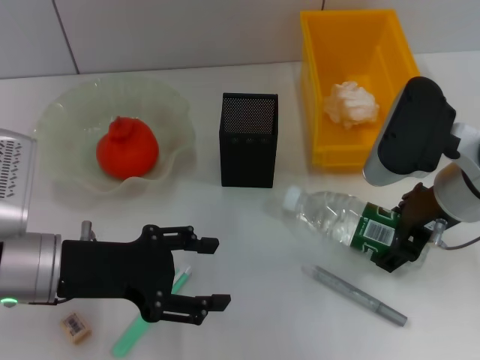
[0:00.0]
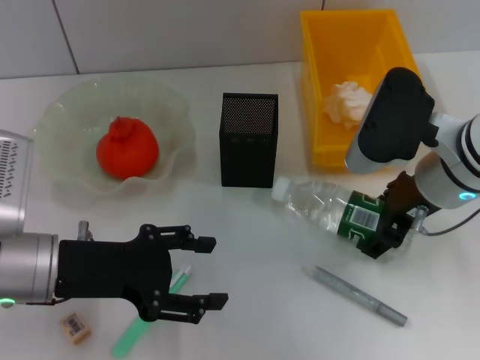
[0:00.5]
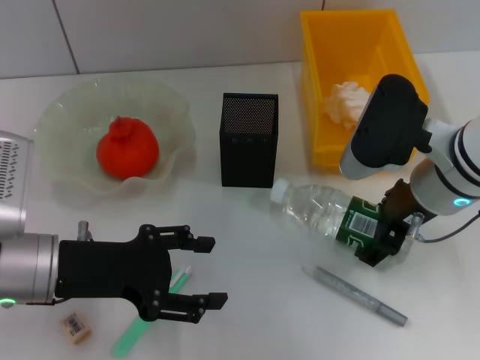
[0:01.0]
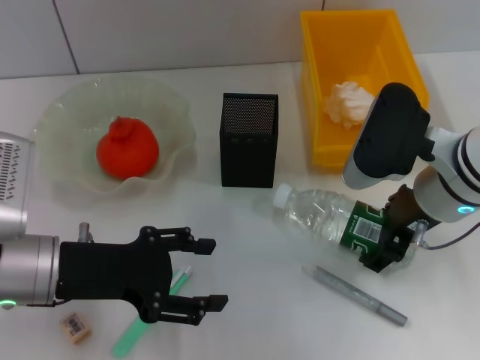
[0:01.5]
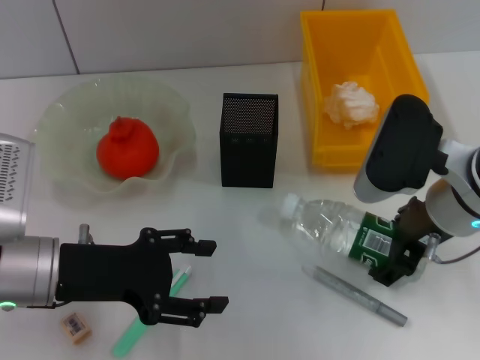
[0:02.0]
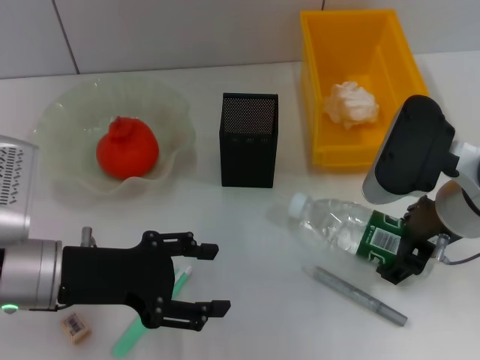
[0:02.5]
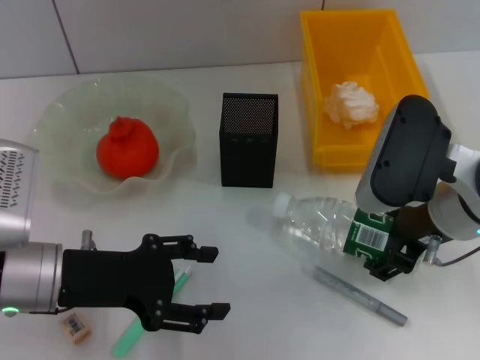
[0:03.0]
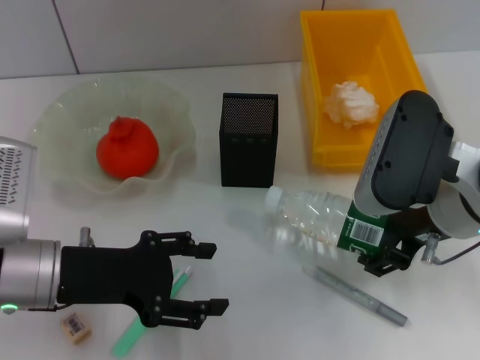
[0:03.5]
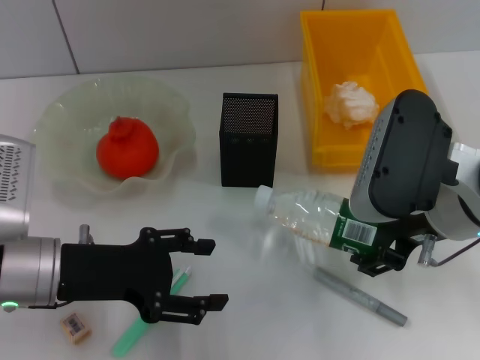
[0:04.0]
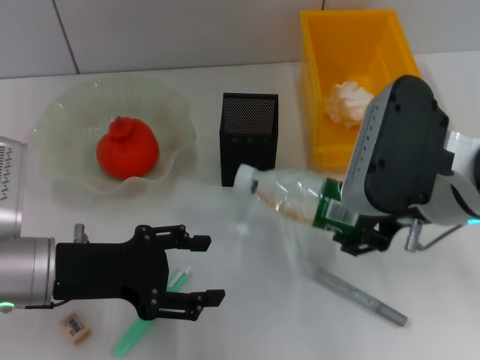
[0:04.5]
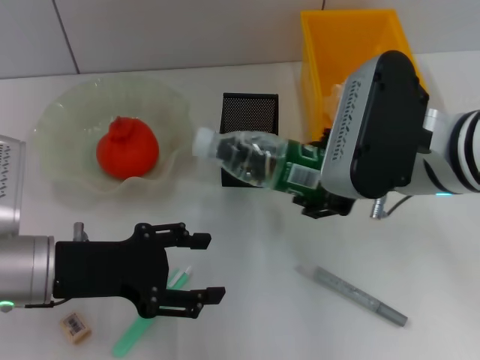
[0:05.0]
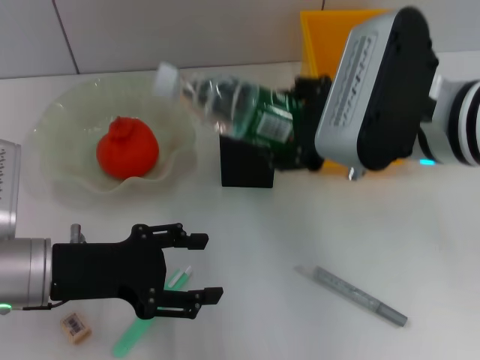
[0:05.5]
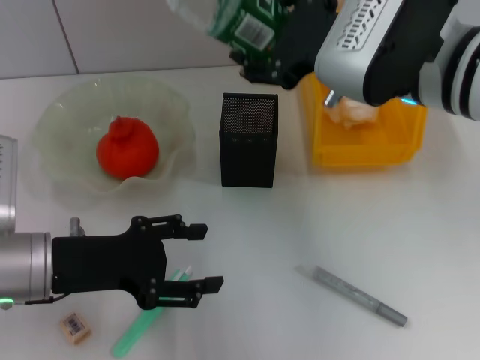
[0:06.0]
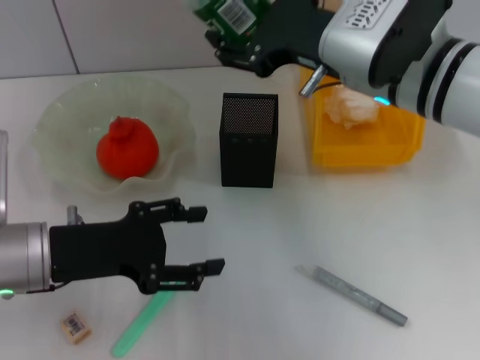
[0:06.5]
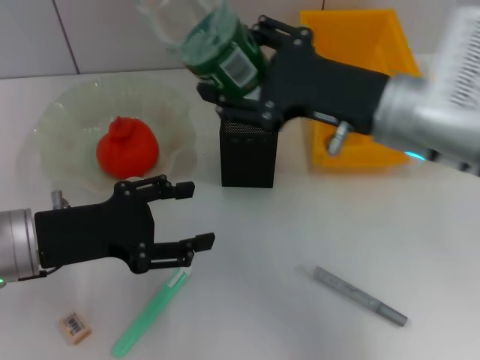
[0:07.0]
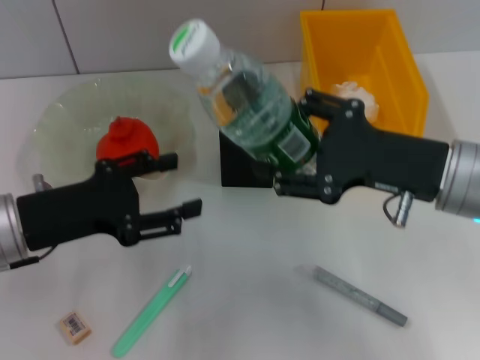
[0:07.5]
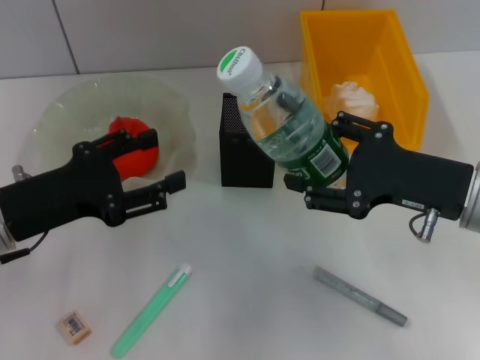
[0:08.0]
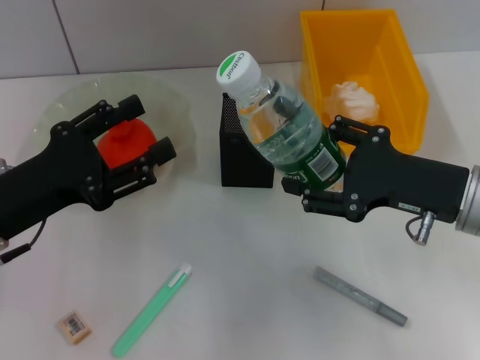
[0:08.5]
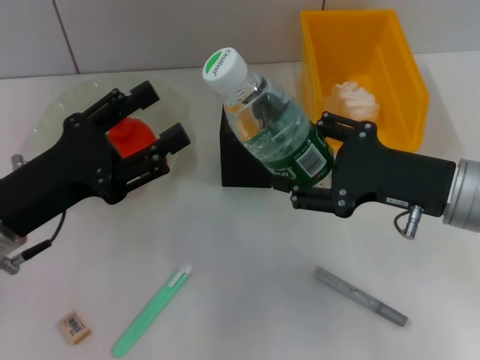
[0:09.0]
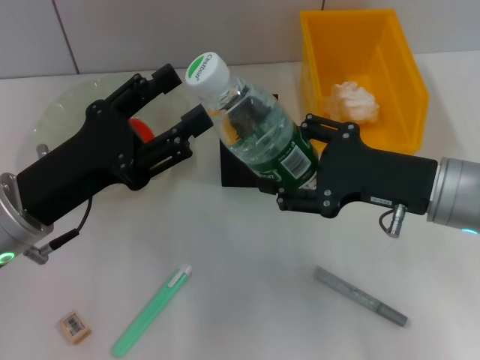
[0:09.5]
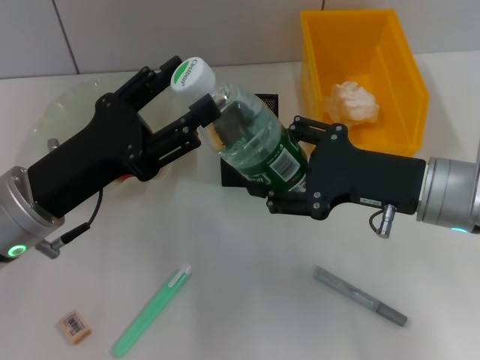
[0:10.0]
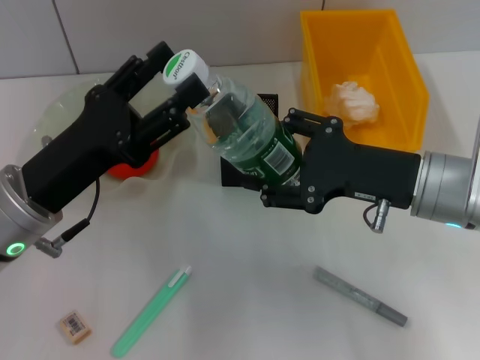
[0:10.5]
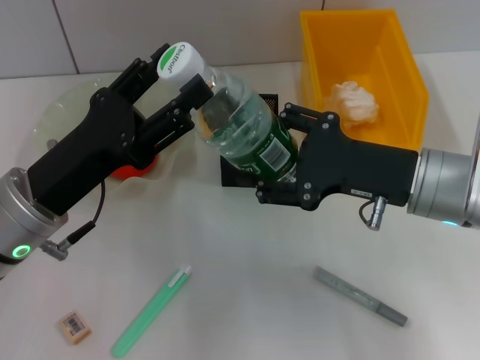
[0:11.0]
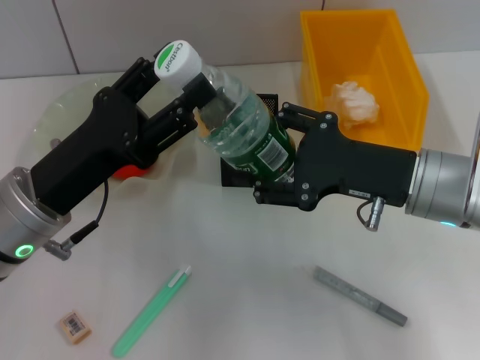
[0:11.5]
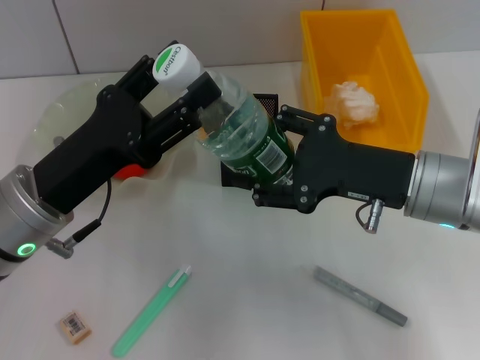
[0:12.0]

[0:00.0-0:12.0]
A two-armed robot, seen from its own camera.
Step, 0:00.0 to 0:02.5: Grab the water bottle with the right hand.
0:00.0 to 0:02.0: The grippers stay close to where they were, moving slightly.
0:02.0 to 0:04.0: The right gripper changes place by some 5 cm.
0:04.0 to 0:06.0: The right gripper goes roughly 10 cm upward and forward.
0:06.0 to 0:08.0: The right gripper goes roughly 15 cm downward, to the right and backward.
0:10.0 to 0:12.0: The grippers make only small movements.

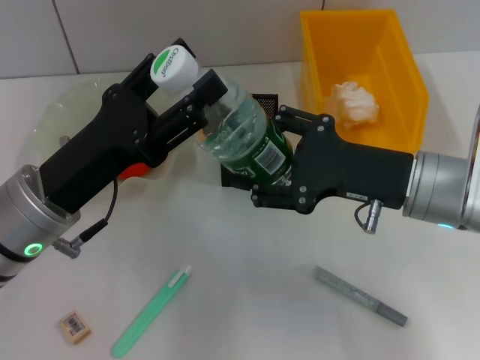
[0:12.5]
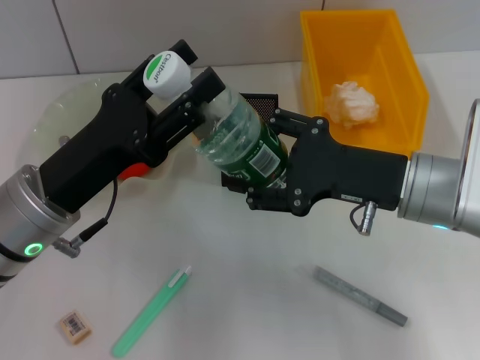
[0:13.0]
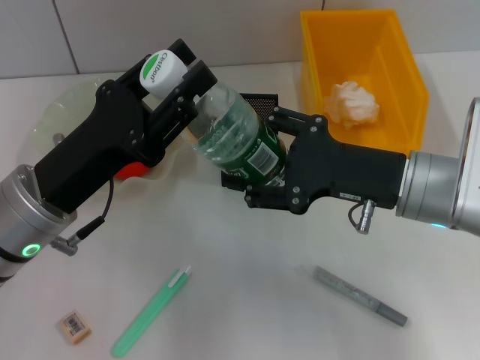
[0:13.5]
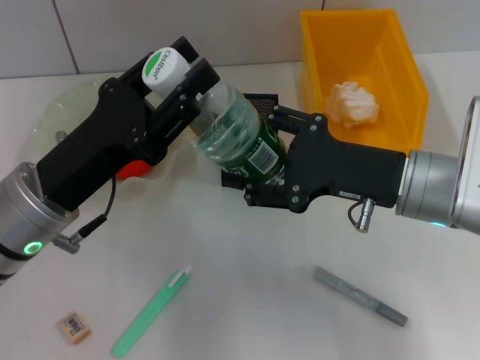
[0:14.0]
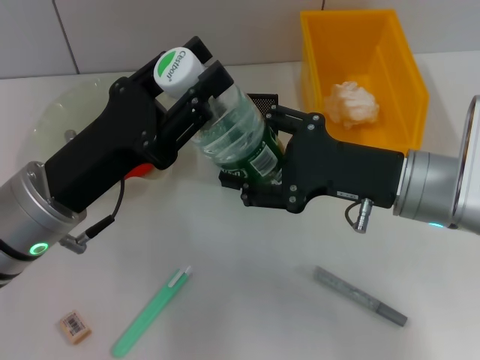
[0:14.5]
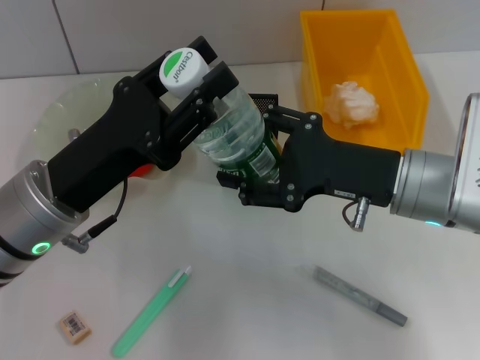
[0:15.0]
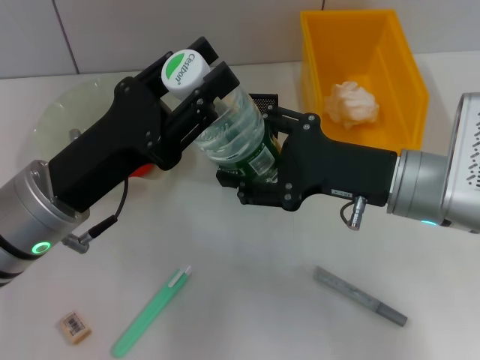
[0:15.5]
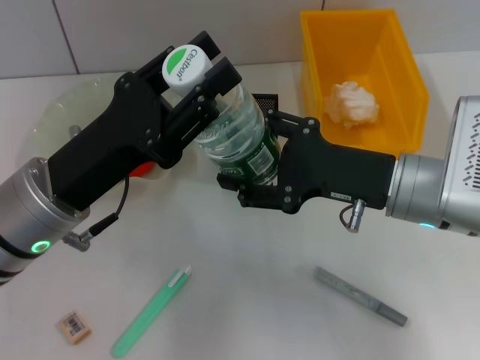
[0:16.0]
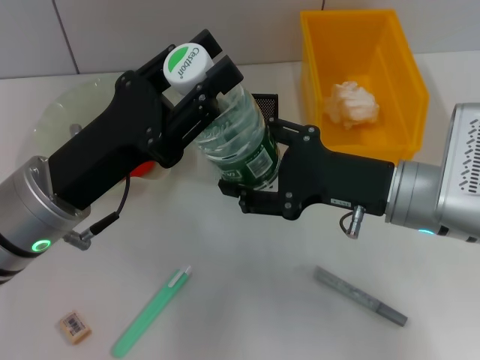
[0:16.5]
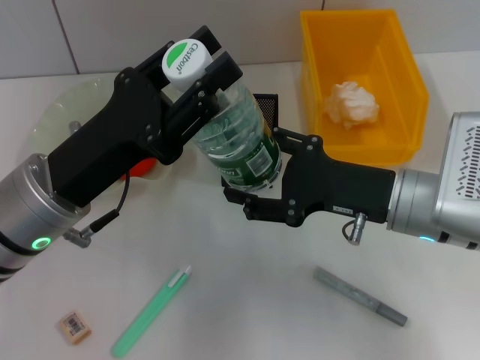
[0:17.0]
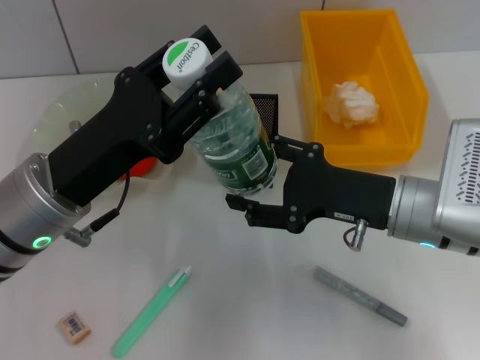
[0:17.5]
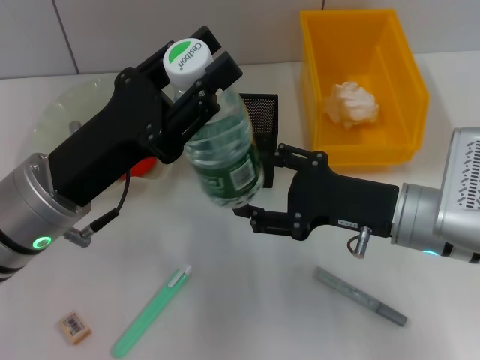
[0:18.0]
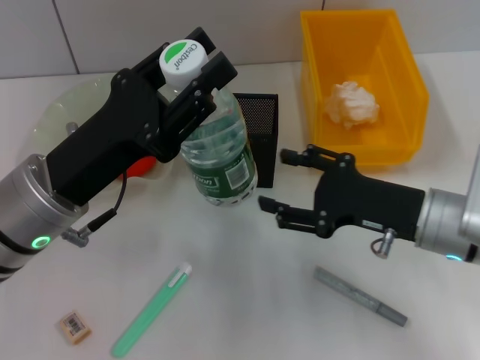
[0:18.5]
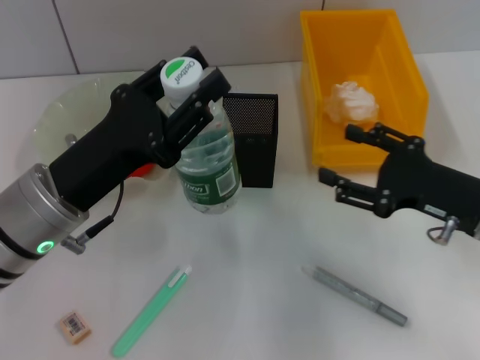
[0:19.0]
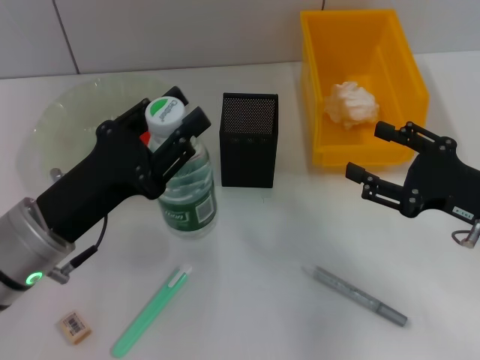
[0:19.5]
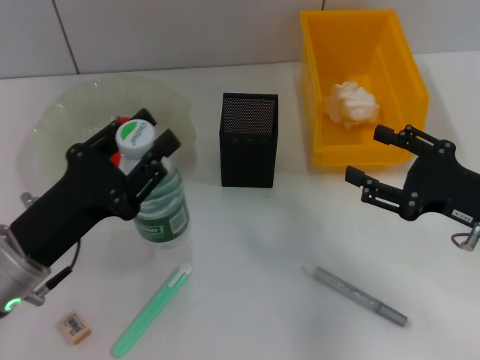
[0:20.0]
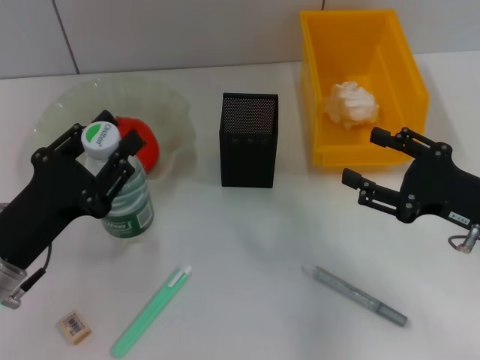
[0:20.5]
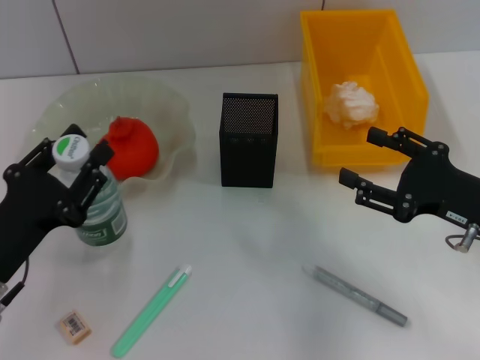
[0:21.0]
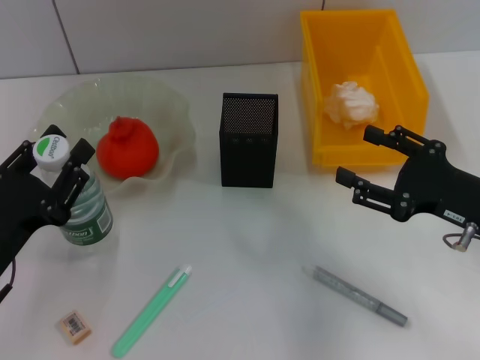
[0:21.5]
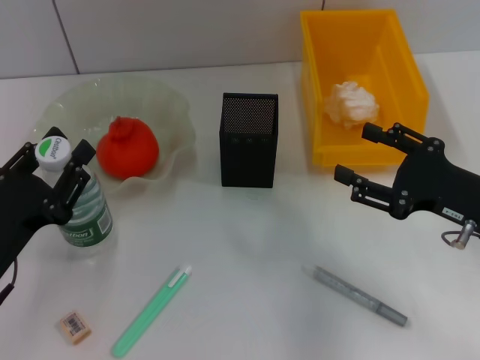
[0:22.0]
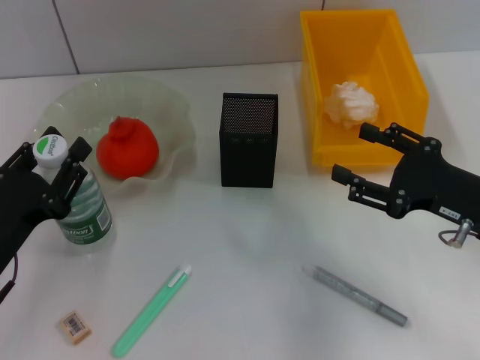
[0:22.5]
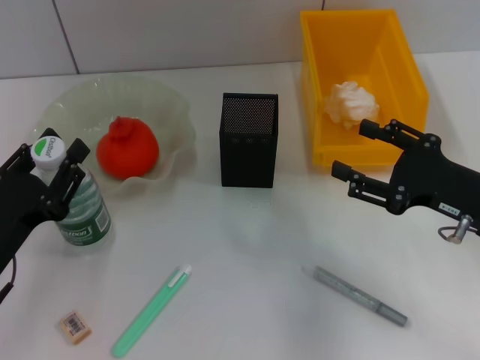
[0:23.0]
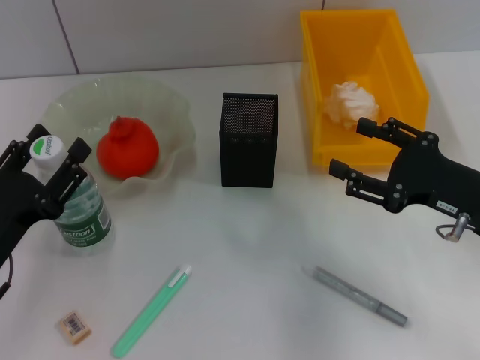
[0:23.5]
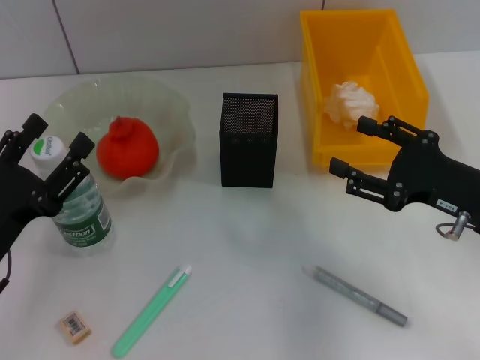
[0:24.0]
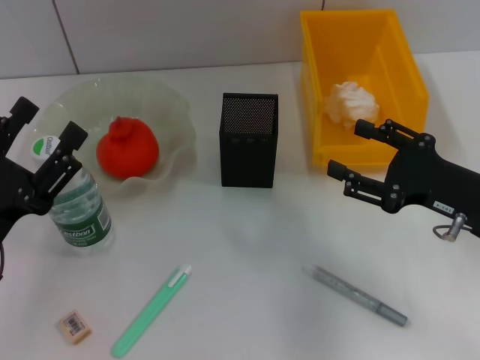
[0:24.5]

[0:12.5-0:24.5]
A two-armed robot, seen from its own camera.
Step, 0:12.5 to 0:18.0: Pass the water bottle from the right hand to the left hand.
Step, 0:18.5 to 0:23.0: Place the water bottle on the table with the left hand.
0:12.5 to 0:14.5: The left gripper closes up.
0:14.5 to 0:18.5: The grippers make only small movements.
0:18.5 to 0:20.5: The right gripper heads to the right, covering roughly 5 cm, while the left gripper travels to the left and downward by some 10 cm.
0:20.5 to 0:22.5: The grippers stay close to where they were, moving slightly.
0:22.5 to 0:24.5: The left gripper opens up.

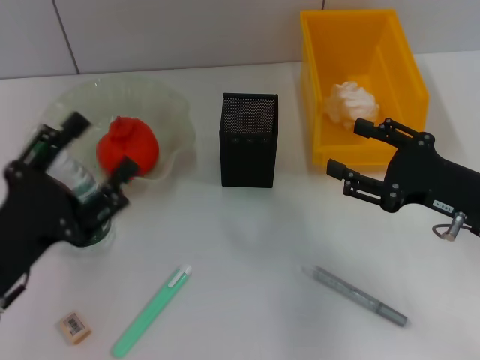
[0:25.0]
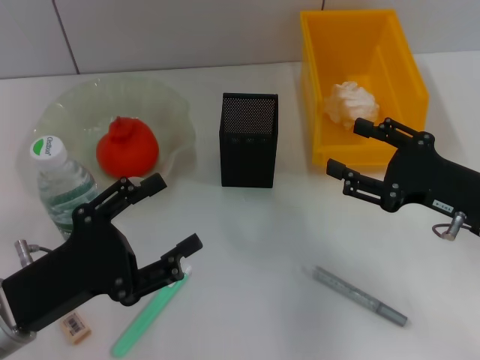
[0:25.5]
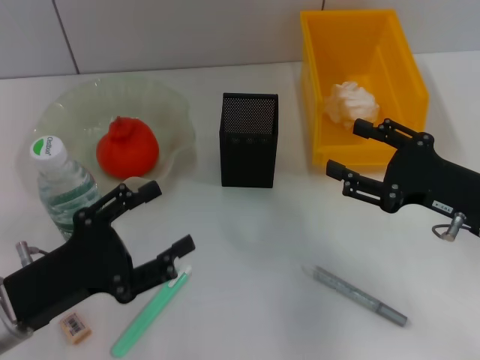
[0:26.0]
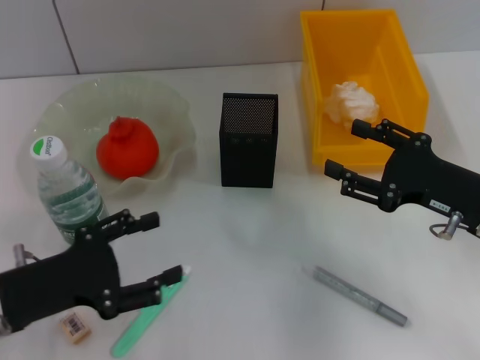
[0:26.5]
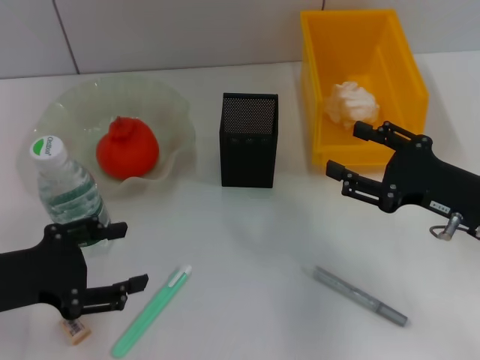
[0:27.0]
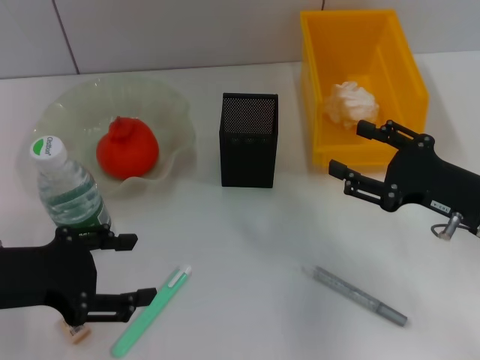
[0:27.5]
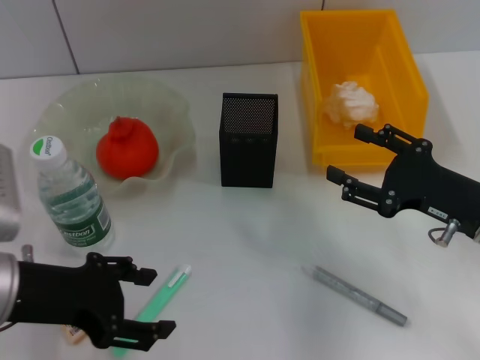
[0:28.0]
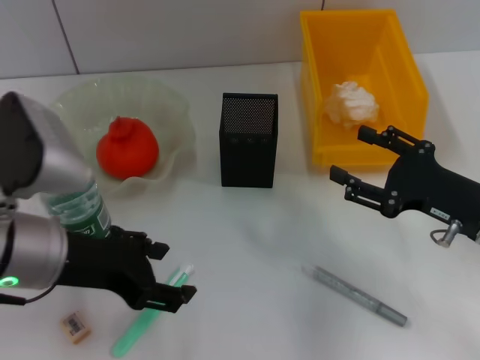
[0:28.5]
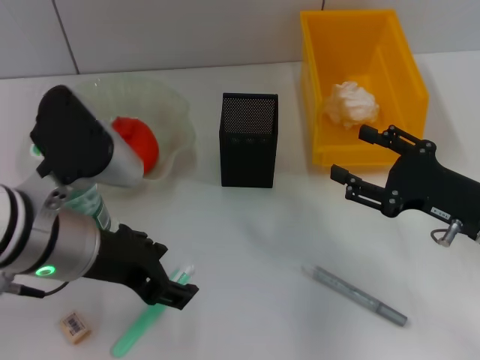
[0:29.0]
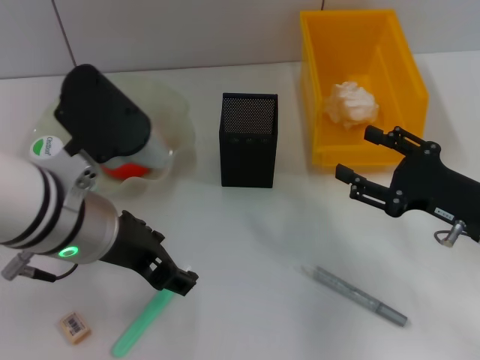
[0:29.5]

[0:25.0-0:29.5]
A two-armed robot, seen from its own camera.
0:27.0 to 0:29.5: The left gripper moves to the right and upward, some 15 cm.
